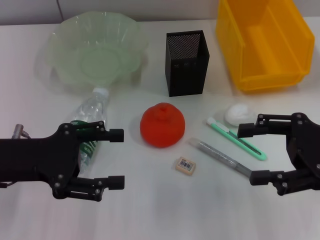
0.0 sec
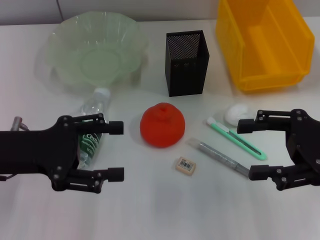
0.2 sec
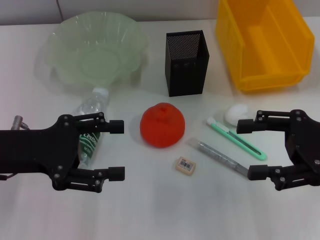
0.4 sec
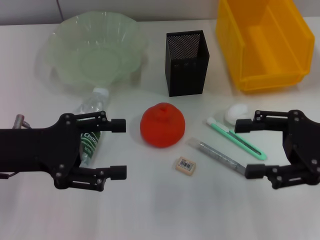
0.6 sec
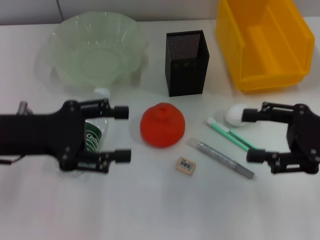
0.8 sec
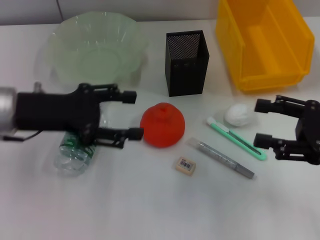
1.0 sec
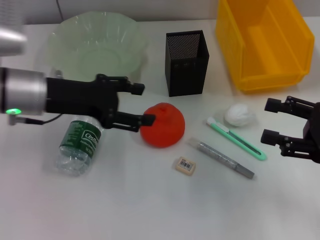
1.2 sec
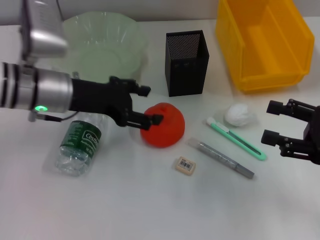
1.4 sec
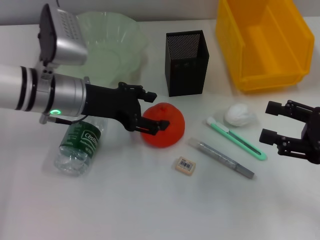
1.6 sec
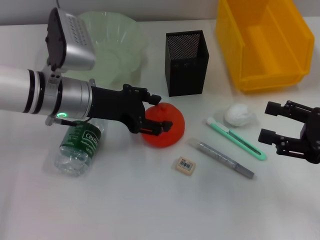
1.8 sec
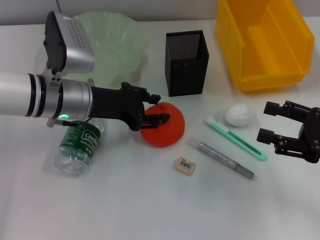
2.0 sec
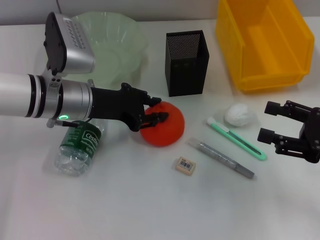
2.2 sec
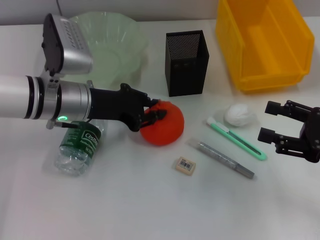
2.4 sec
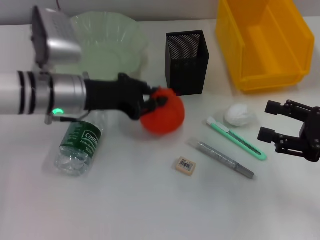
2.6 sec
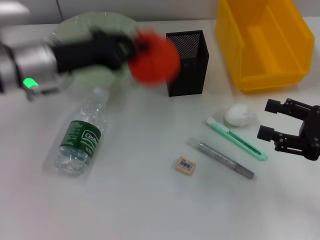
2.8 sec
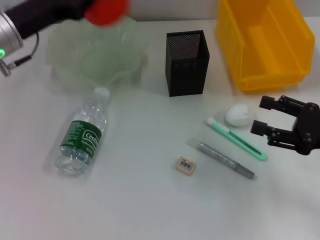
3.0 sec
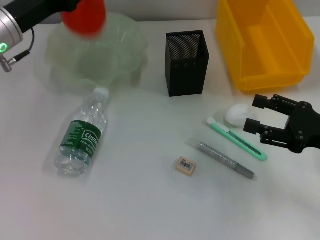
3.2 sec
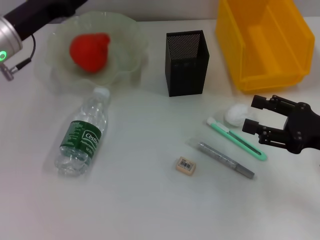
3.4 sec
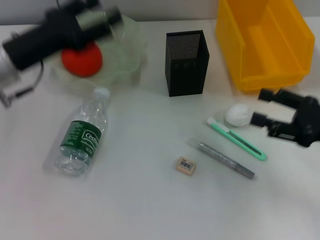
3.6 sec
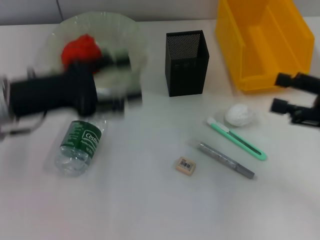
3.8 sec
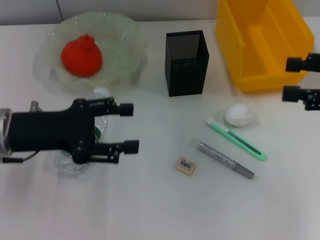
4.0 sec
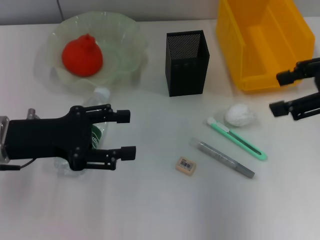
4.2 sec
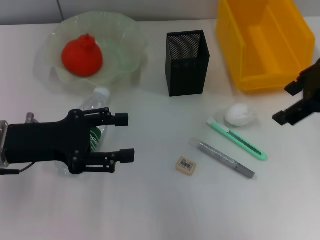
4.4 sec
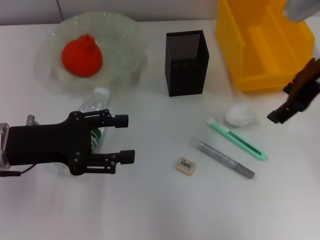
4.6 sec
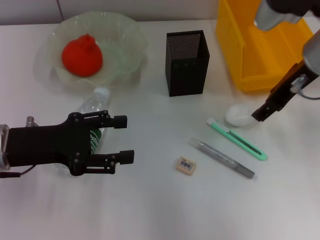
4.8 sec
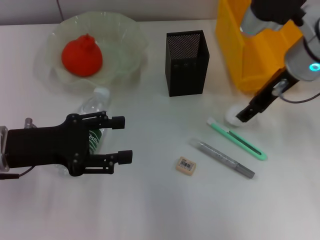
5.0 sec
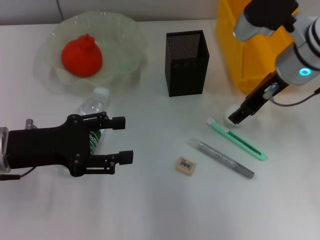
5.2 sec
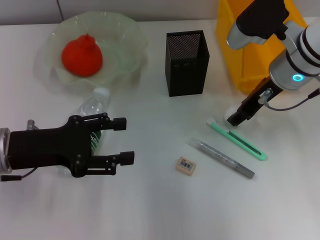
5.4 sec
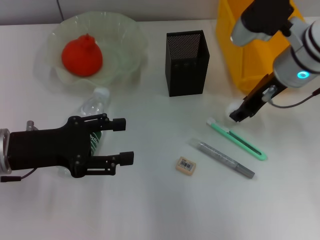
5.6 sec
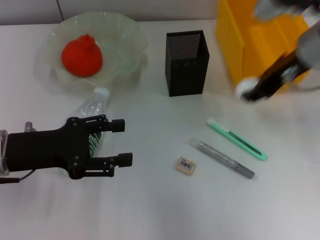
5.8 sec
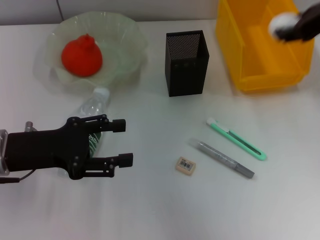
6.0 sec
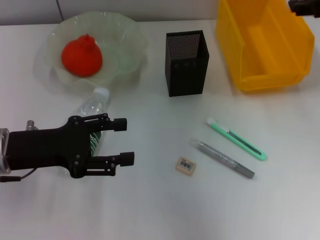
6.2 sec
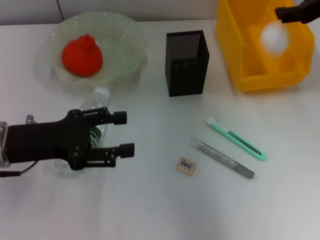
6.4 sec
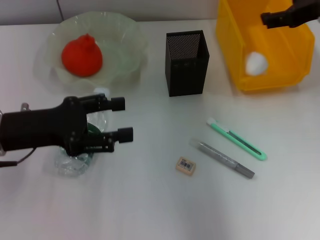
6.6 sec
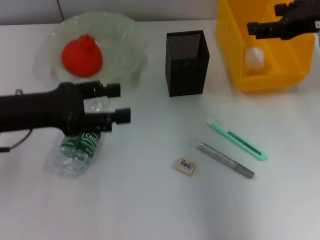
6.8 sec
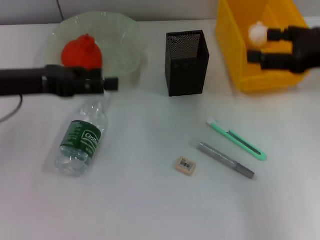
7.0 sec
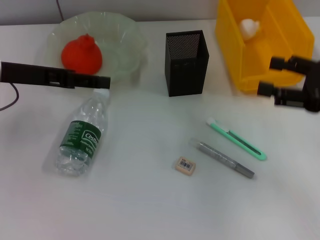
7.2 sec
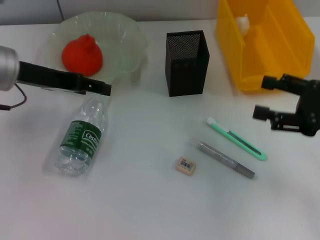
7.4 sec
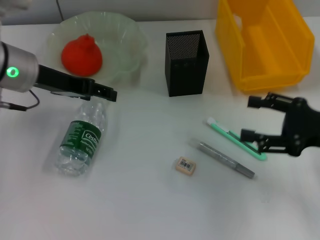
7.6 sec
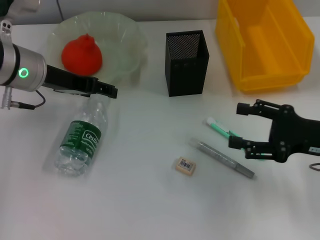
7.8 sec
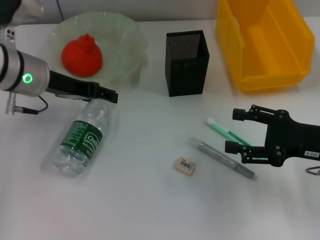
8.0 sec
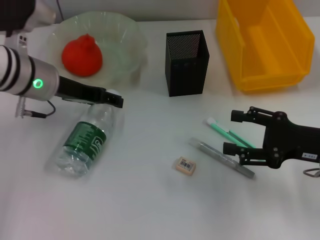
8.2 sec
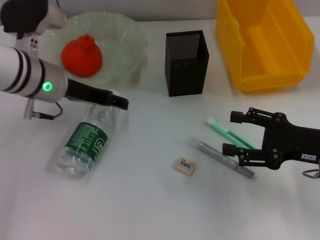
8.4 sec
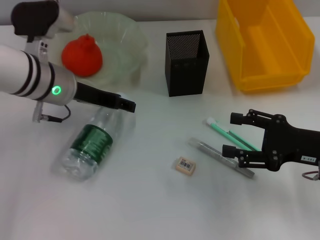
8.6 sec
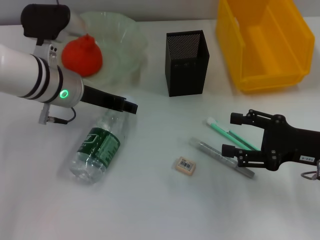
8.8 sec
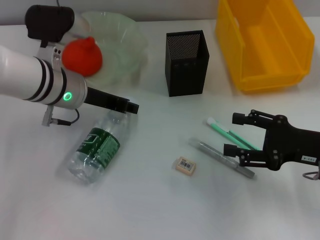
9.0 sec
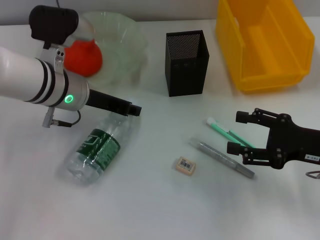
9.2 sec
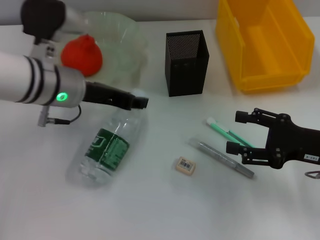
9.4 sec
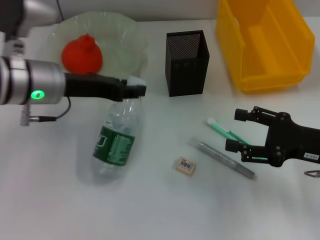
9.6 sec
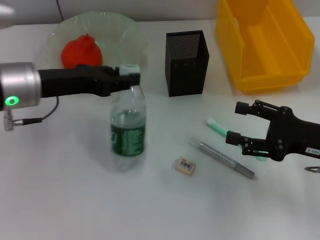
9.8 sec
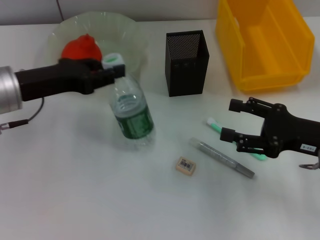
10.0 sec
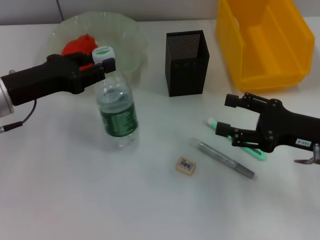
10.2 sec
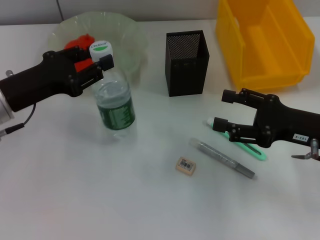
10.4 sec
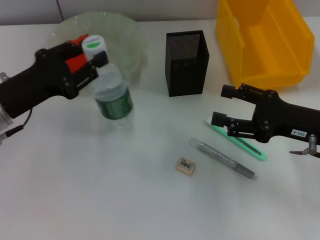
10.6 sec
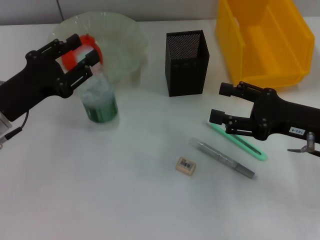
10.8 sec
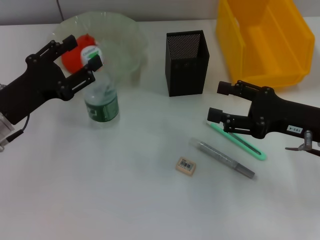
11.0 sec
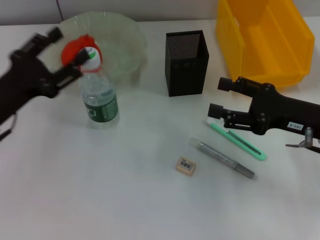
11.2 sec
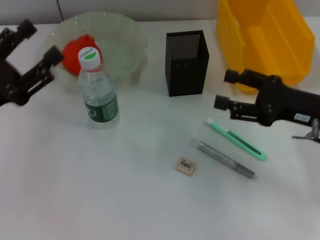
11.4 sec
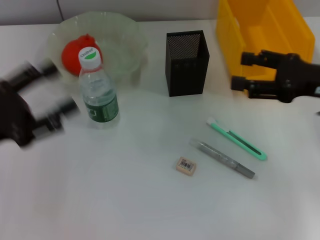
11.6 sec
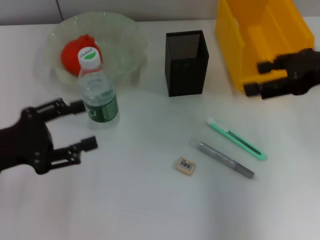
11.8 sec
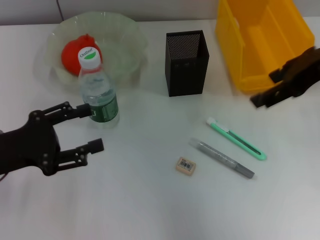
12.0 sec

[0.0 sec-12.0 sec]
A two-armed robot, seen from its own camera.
Step, 0.0 sec to 2.4 sec: Grab the orange with the left hand.
Step, 2.6 sec to 3.2 sec: Place the orange into the fruit bowl with the left hand.
Step, 3.4 sec to 5.2 sec: Grab the paper ball with the right hand.
Step, 5.6 sec to 6.8 sec: Place the paper ball into the trash can with the right hand.
Step, 7.2 sec to 8.8 sec: Grab the water bottle with the left hand.
Step, 9.0 sec to 10.8 sec: Place the water bottle on the table with the left hand.
0.0 sec to 1.6 sec: The left gripper moves forward and to the right, about 15 cm, while the right gripper moves about 5 cm.
1.6 sec to 3.0 sec: The left gripper shifts roughly 5 cm to the left, and closes.
3.0 sec to 4.4 sec: The right gripper moves upward, to the left and forward, approximately 20 cm; the left gripper is displaced backward by roughly 10 cm, and opens.
4.4 sec to 6.0 sec: The right gripper goes downward and returns, about 10 cm each way, and closes.
6.0 sec to 7.6 sec: The right gripper travels downward and backward by roughly 20 cm, and opens its fingers; the left gripper heads forward and upward, covering approximately 10 cm.
7.6 sec to 9.0 sec: The left gripper goes about 5 cm to the right.
9.0 sec to 10.4 sec: The left gripper heads to the left and backward, covering roughly 10 cm.
10.4 sec to 12.0 sec: The left gripper moves backward, some 5 cm, and opens its fingers, while the right gripper travels upward by some 15 cm.

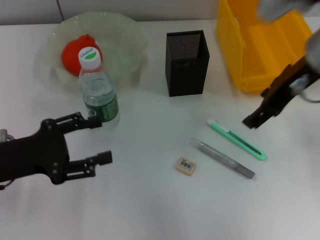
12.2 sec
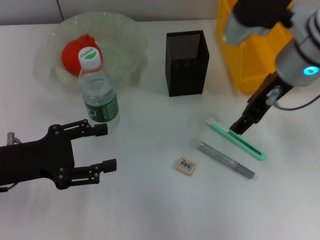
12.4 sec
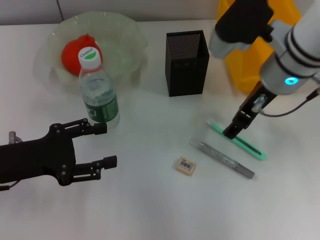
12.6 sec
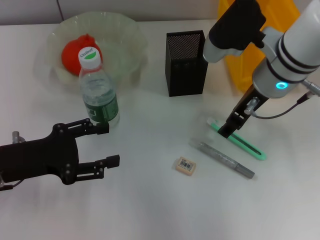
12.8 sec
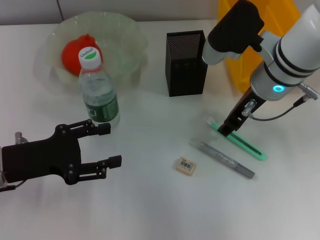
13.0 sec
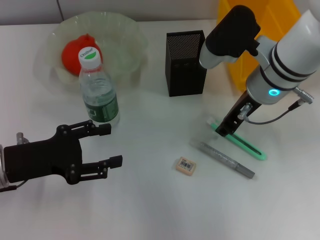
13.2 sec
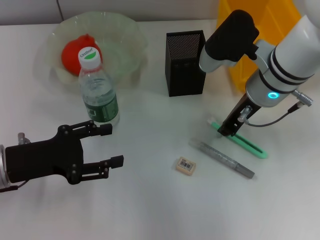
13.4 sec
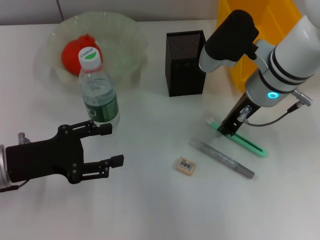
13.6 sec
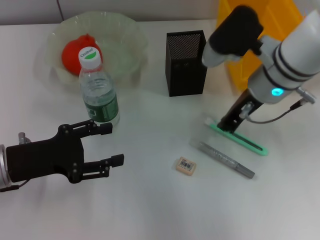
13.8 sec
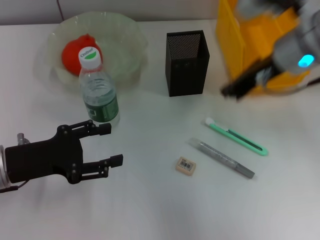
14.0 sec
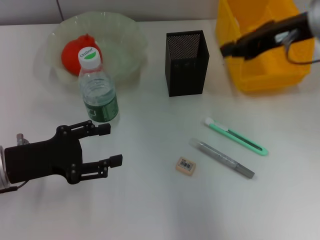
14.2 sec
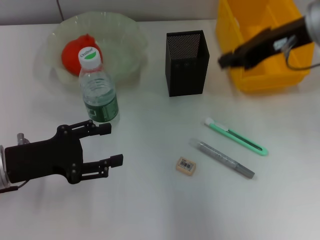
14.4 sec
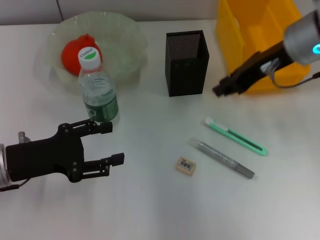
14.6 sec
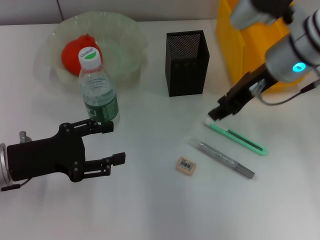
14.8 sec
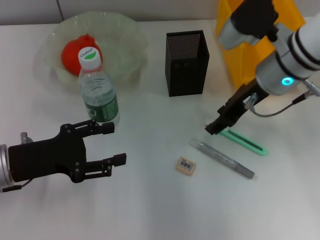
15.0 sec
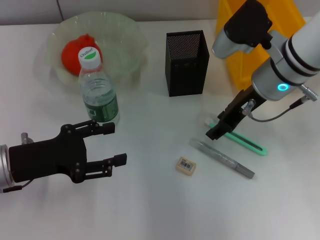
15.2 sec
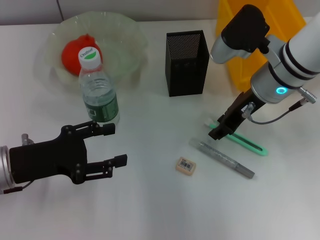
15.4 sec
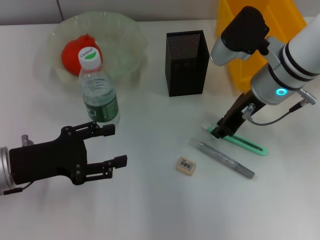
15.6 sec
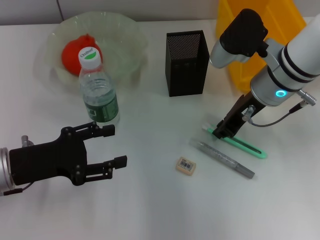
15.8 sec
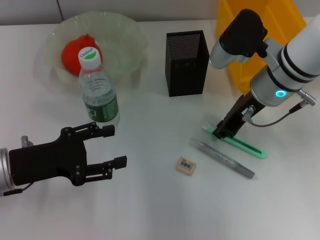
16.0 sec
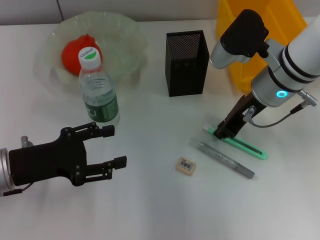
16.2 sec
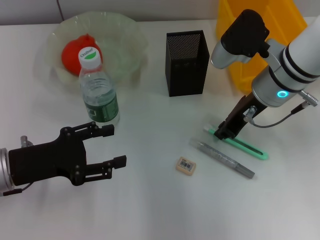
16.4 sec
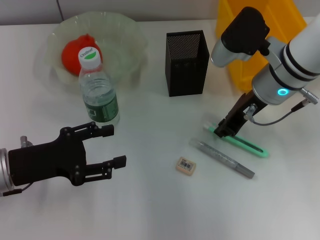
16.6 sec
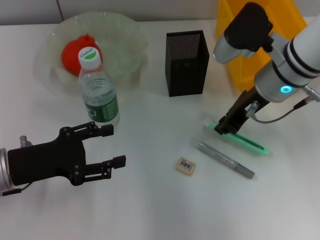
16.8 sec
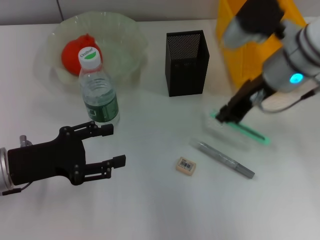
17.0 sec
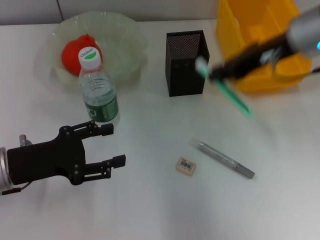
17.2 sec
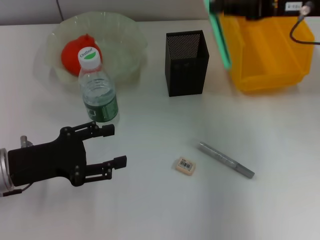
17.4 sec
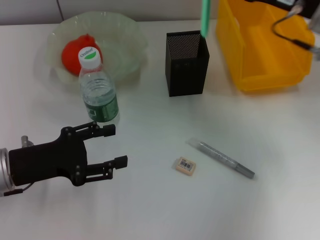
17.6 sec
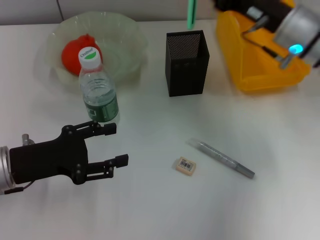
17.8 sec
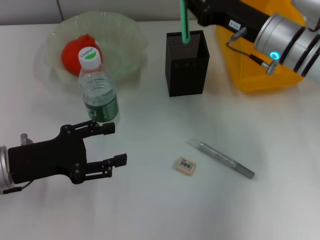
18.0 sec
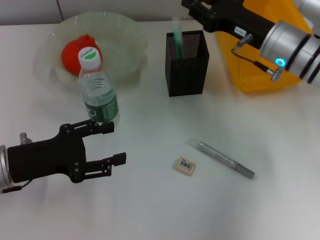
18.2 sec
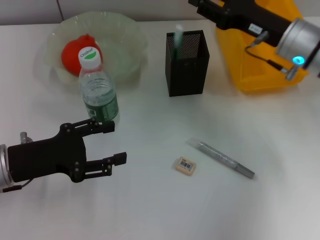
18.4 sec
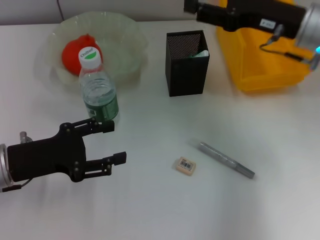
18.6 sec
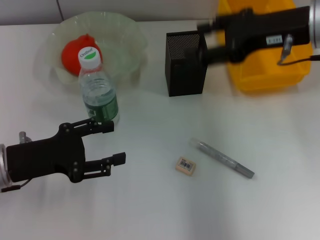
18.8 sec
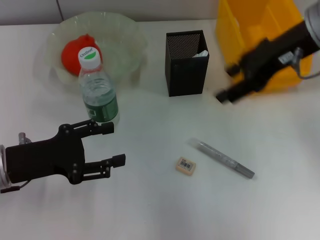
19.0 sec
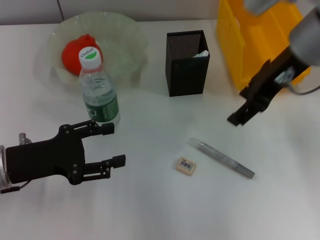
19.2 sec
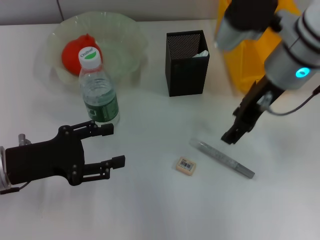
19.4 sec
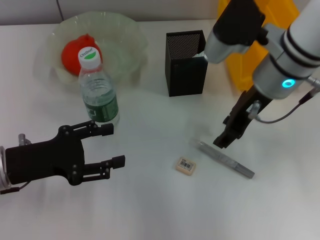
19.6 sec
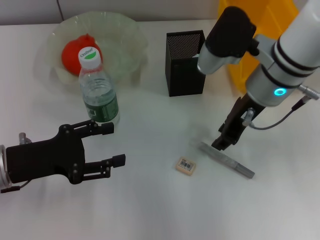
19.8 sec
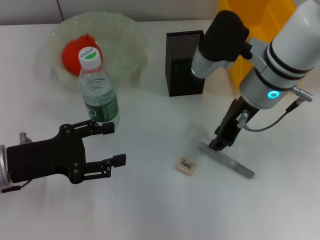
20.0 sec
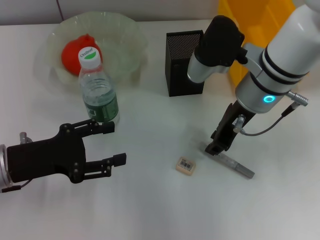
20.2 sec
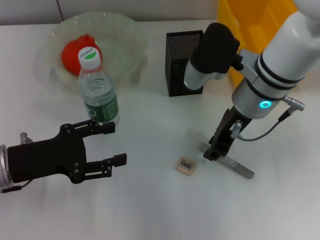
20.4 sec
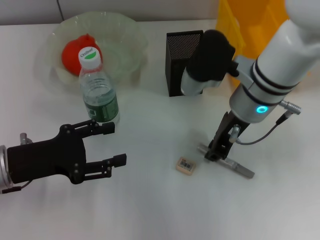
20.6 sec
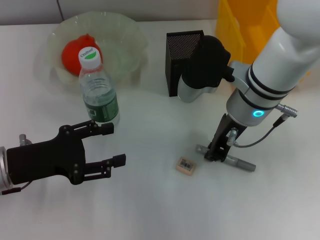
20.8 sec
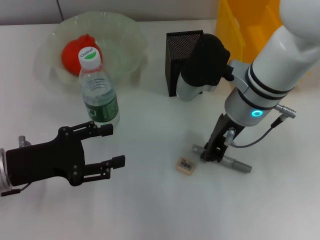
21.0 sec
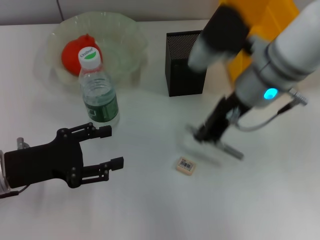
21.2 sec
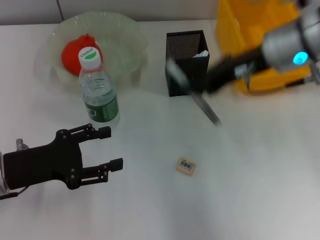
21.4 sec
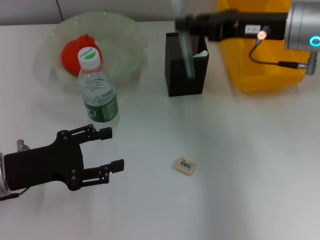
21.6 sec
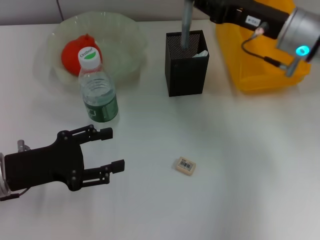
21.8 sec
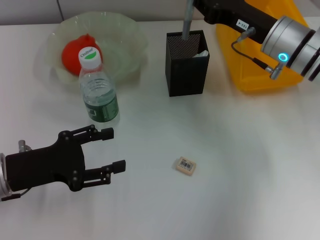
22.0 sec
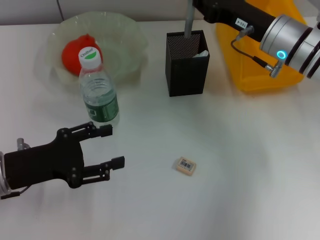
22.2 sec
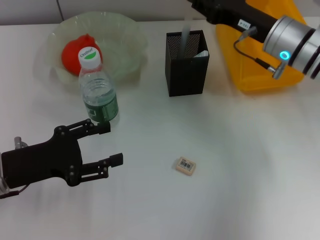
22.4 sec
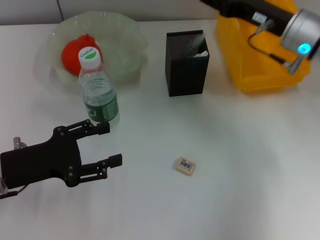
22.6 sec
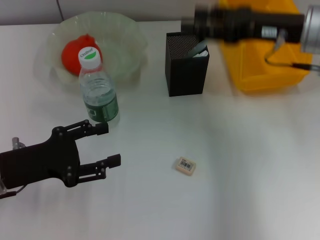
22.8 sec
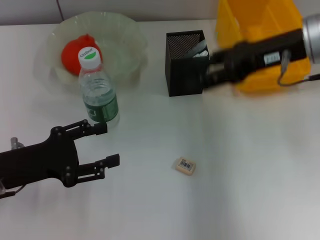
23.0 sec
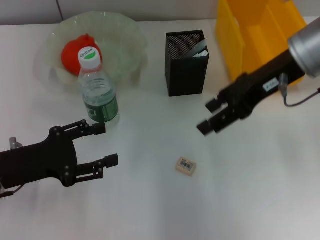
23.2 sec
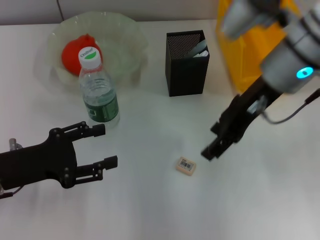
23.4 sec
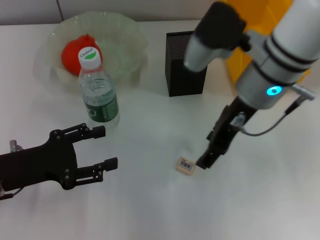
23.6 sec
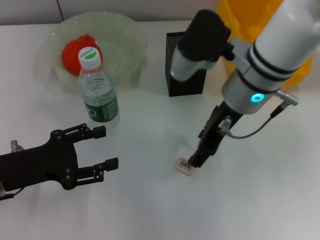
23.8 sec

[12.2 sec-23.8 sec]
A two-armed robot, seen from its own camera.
Step, 12.2 sec to 15.6 sec: Grab the blue utility knife with the right hand.
Step, 16.0 sec to 18.6 sec: Place the blue utility knife into the pen holder with the right hand.
Step, 18.8 sec to 20.8 sec: Grab the gray glue with the right hand.
Step, 21.0 sec to 22.6 sec: Place the gray glue into the pen holder with the right hand.
12.2 sec to 13.6 sec: The right gripper travels downward by about 10 cm, and closes.
13.6 sec to 15.0 sec: The right gripper reaches roughly 10 cm upward, then returns.
15.0 sec to 16.6 sec: The right gripper closes up.
16.6 sec to 18.0 sec: The right gripper goes upward and returns, approximately 10 cm each way.
18.0 sec to 19.4 sec: The right gripper travels upward by approximately 5 cm, and opens its fingers.
19.4 sec to 21.0 sec: The right gripper is displaced downward by roughly 5 cm, and closes its fingers.
21.0 sec to 22.4 sec: The right gripper heads to the right, covering approximately 10 cm.
22.4 sec to 23.8 sec: The right gripper goes roughly 10 cm to the left, and opens.
